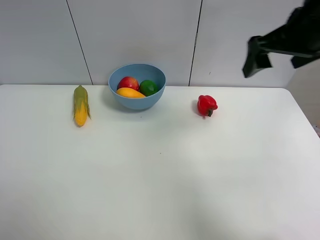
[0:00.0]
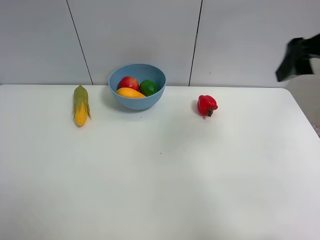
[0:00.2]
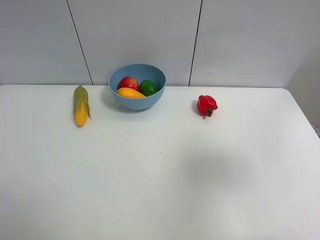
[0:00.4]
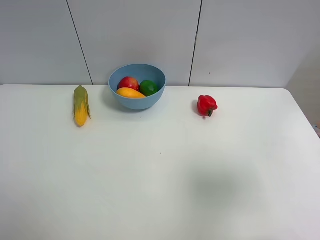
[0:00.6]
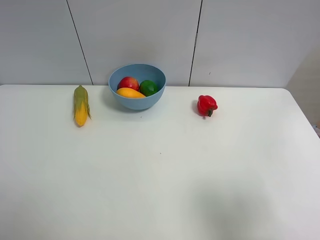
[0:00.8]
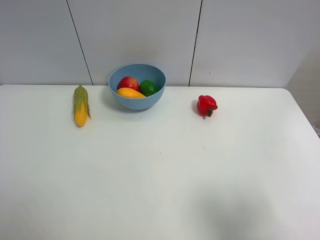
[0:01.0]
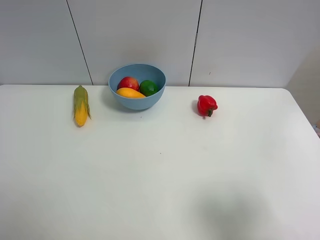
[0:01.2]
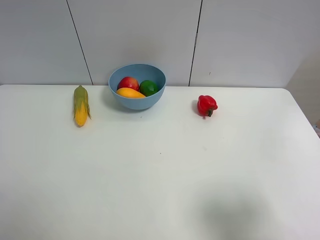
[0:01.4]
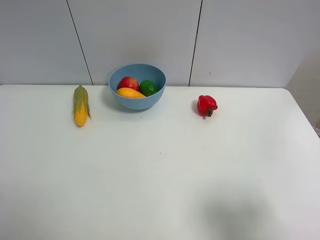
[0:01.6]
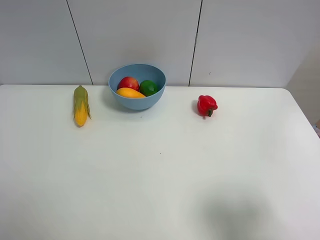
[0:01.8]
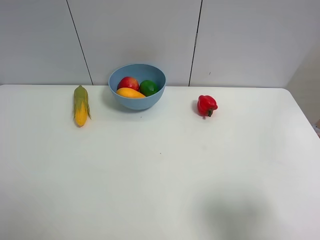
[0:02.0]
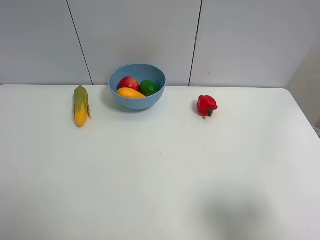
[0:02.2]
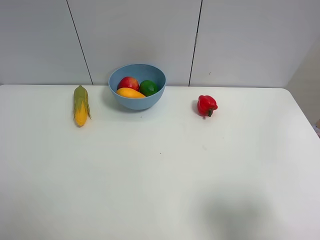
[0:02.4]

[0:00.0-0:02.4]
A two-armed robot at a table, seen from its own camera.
Task of the whole recording: Put the three fruits on the table into a bowl.
0:00.0 to 0:01.2: The right gripper shifts some 25 cm backward.

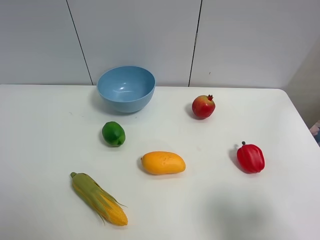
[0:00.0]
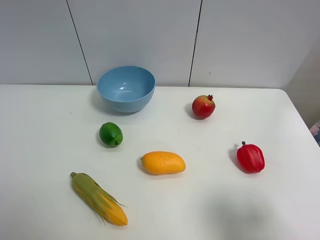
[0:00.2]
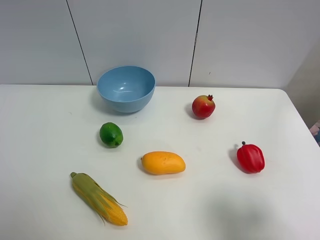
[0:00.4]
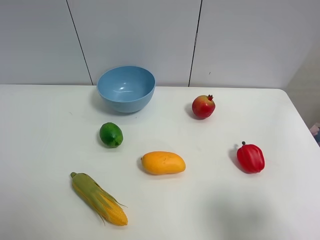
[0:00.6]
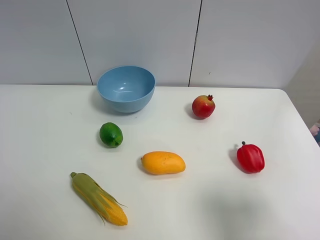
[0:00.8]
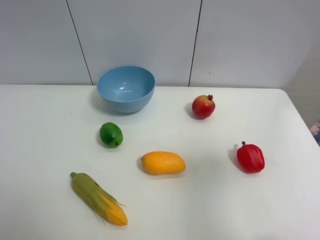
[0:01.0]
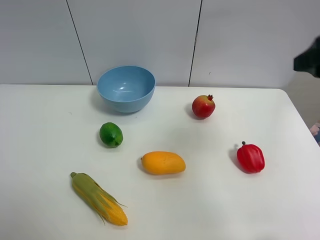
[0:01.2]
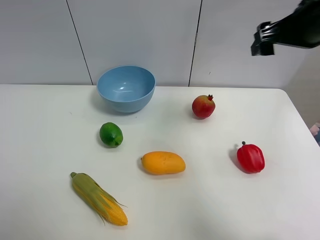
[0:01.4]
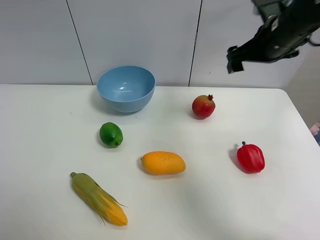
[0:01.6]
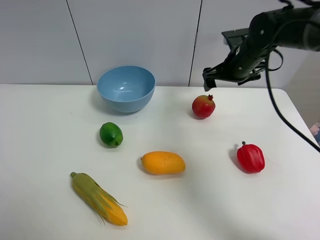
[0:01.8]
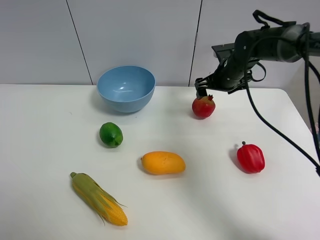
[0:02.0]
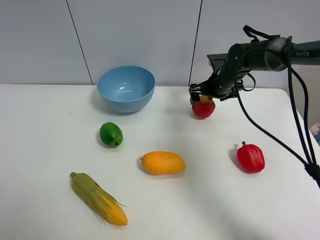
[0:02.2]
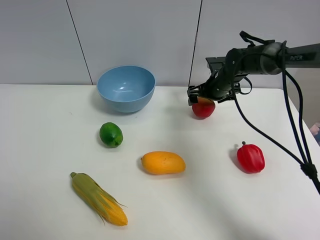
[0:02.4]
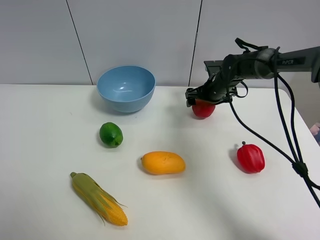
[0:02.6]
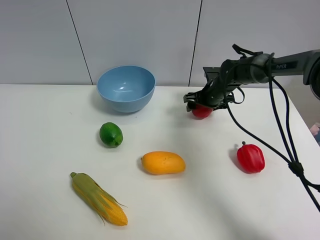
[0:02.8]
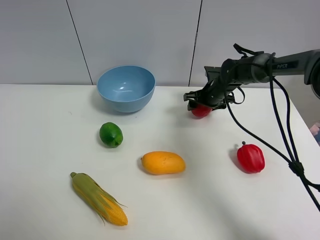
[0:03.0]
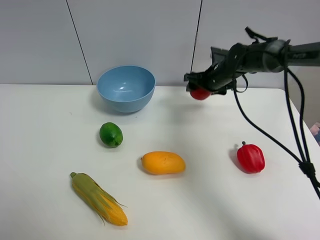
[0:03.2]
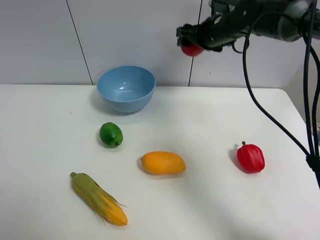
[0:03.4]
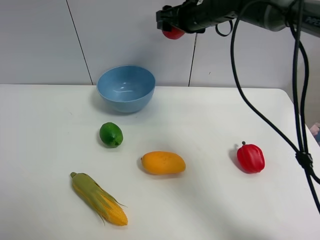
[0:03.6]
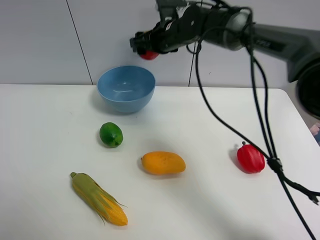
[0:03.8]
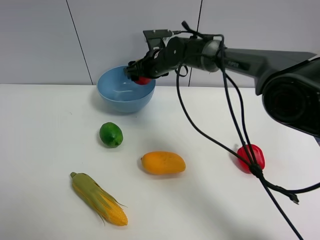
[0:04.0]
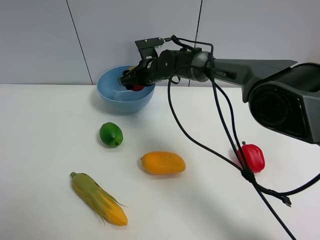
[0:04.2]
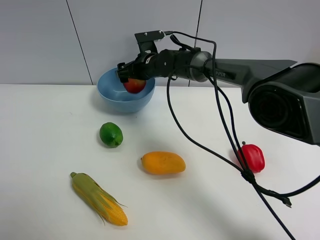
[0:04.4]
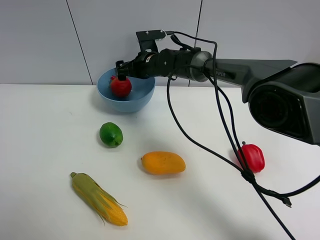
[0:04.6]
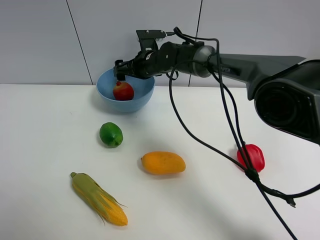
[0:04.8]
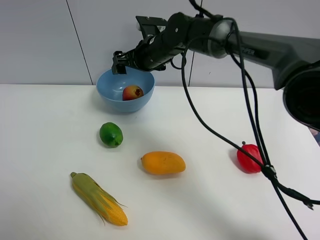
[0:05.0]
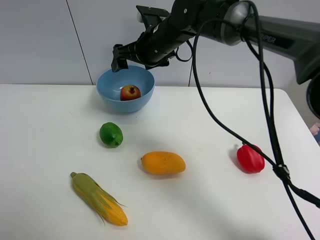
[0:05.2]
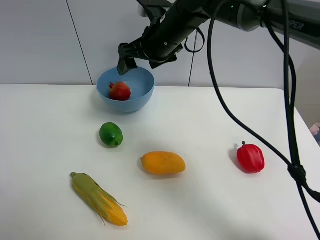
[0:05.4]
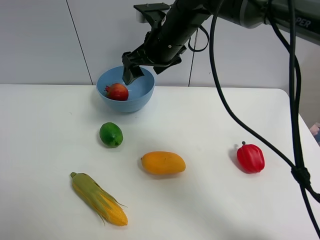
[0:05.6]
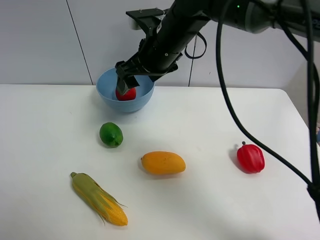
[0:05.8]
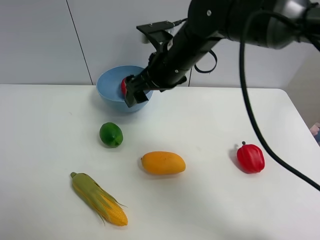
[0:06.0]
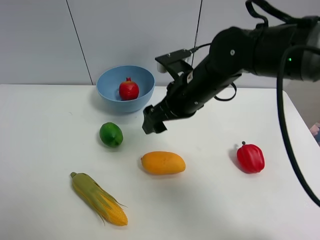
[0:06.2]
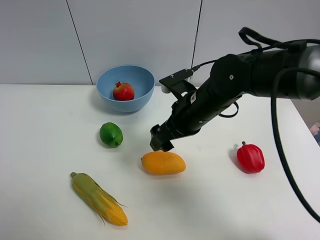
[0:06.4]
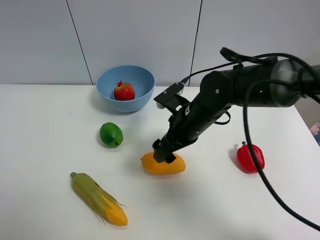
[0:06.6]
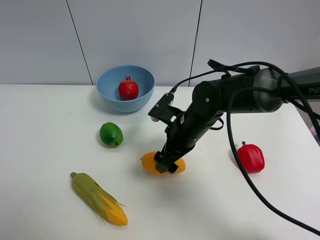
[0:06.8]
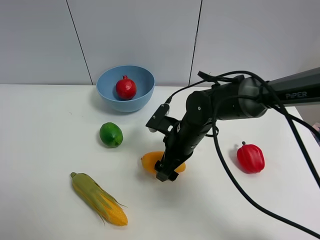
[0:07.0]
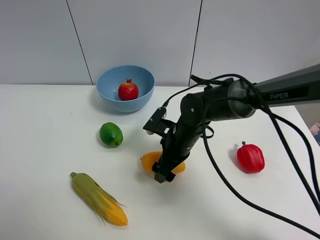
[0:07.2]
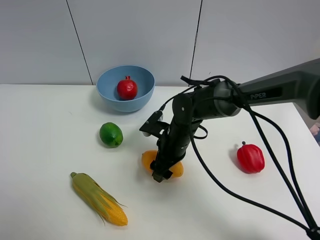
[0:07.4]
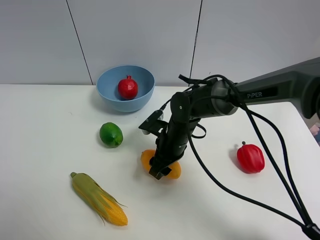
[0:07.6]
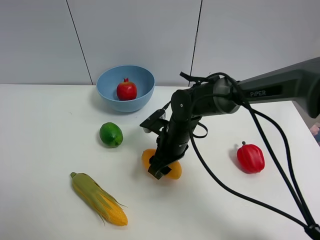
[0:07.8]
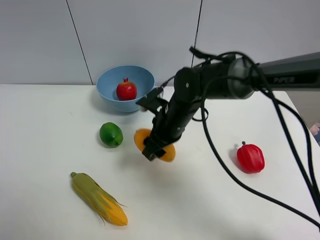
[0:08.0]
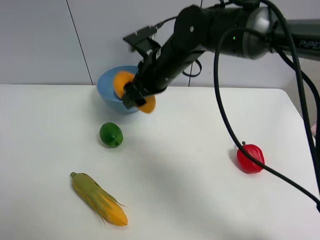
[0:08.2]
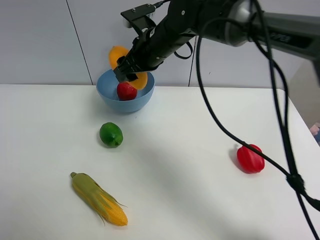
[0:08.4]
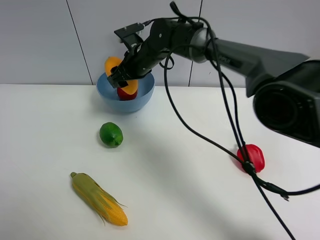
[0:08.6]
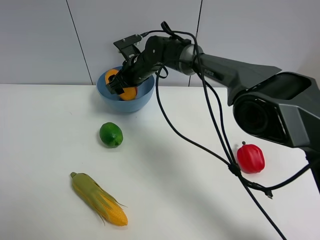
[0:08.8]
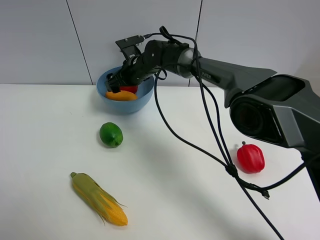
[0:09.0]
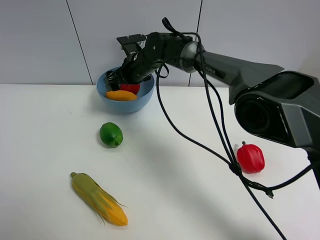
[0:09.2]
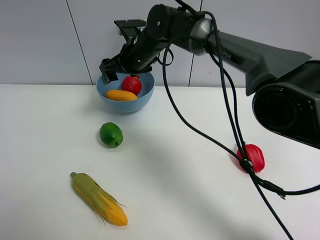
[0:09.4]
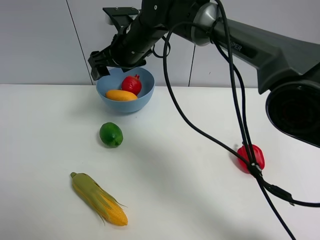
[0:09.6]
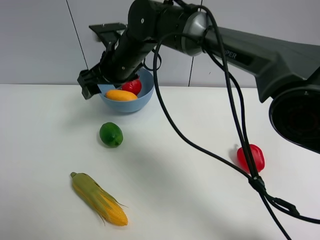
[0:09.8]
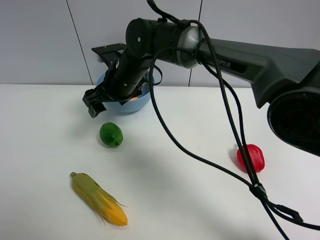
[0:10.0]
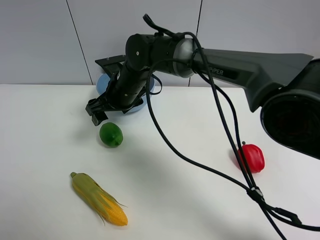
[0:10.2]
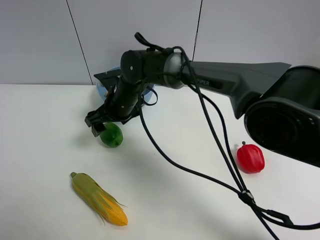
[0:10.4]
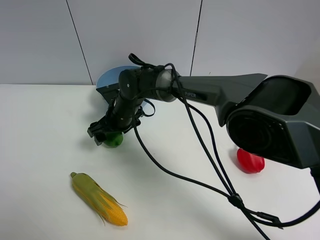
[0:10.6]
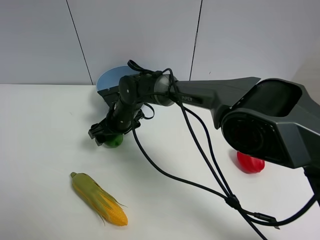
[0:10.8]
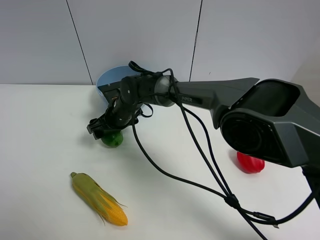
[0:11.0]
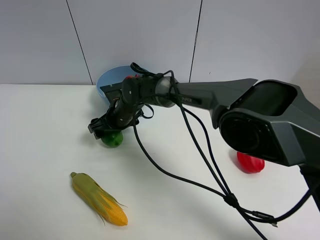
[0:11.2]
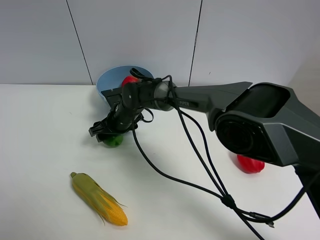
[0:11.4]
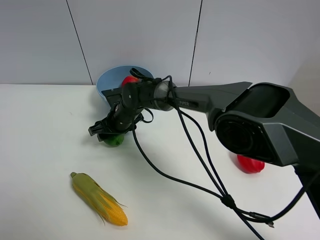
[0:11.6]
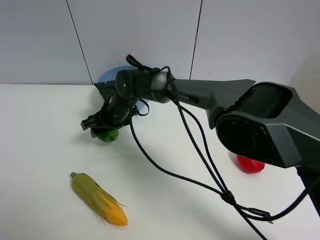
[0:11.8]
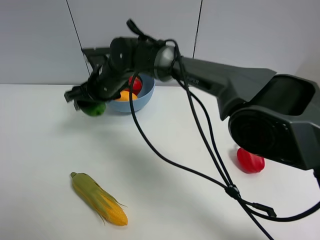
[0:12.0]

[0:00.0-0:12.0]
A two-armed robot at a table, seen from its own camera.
Task of the whole recording: Put the three fruits on the table into a bowl.
Step, 0:00.0 to 0:02.8: Grasp the pomegranate with right gripper.
Step, 0:03.0 to 0:04.4: Place the pomegranate in the blue bowl with right gripper.
Step, 0:04.6 to 0:07.6: Grasp the mango with right gripper.
Step, 0:07.8 to 0:09.0: Place the mango in the blue bowl with right gripper.
Step, 0:09.2 to 0:11.6: Grasp the green lemon with right gripper.
0:00.0 to 0:01.6: The right gripper is displaced forward by roughly 35 cm, and opens up.
0:01.6 to 0:03.0: The right gripper shifts roughly 20 cm downward and forward, and closes its fingers.
0:03.0 to 0:04.4: The right gripper shifts roughly 20 cm to the left, and opens.
0:04.4 to 0:06.0: The right gripper heads backward and upward, covering about 20 cm.
0:06.0 to 0:07.6: The right gripper is displaced downward by approximately 15 cm, and closes its fingers.
0:07.6 to 0:09.0: The right gripper is displaced forward, to the left and upward by some 20 cm, and opens.
0:09.0 to 0:10.4: The right gripper goes some 10 cm backward, and goes upward and returns, some 10 cm each way.
0:10.4 to 0:12.0: The right gripper moves upward, some 5 cm, and closes up.

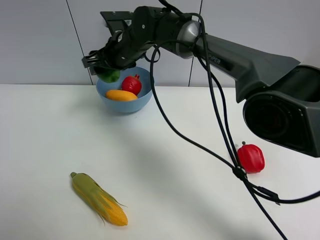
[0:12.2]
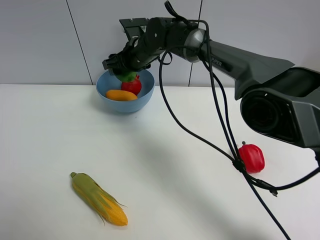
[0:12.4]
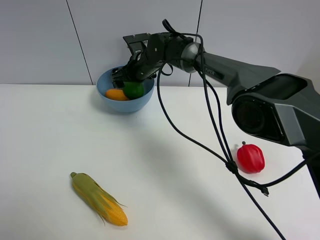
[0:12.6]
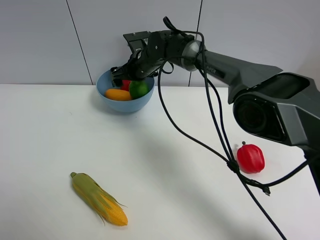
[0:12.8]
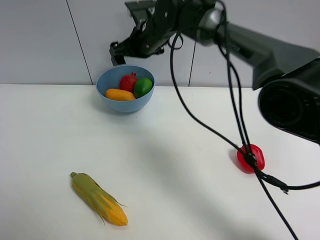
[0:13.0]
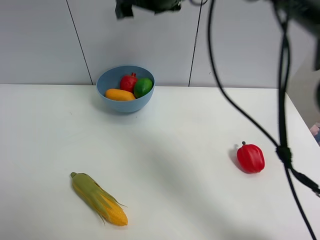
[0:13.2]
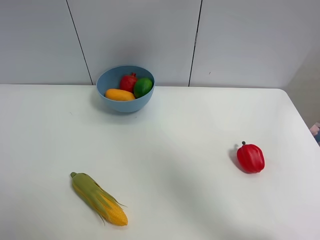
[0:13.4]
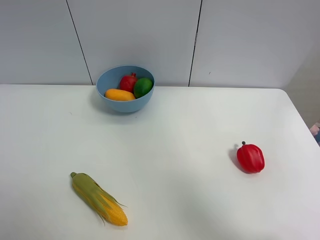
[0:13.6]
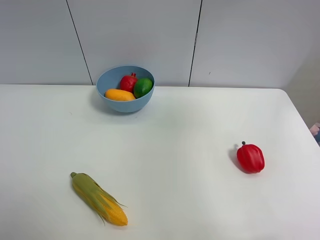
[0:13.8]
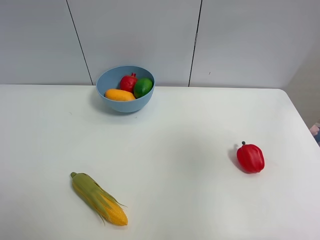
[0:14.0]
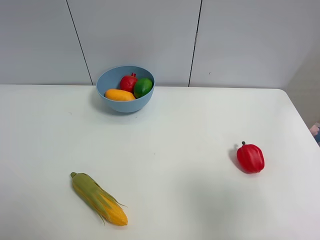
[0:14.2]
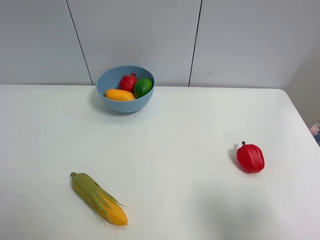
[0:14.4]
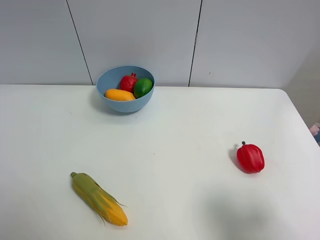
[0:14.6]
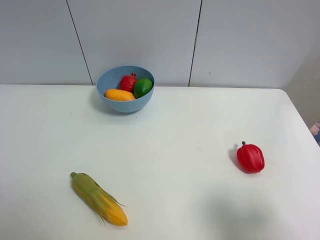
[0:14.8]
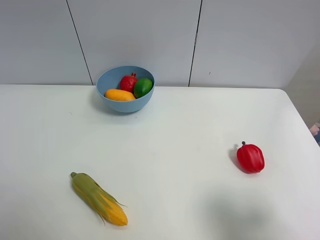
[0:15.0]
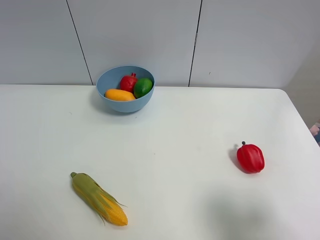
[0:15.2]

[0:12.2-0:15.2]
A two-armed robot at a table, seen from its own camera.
Task of the whole recording: Put the three fruits on the table into a bowl.
Step, 0:12.2 to 0:12.8: Place the green lemon in the blue bowl with right gripper.
0:12.2 to 0:13.8: The right gripper moves up and down over about 35 cm, changing direction 2 times, and opens its fingers.
0:13.8 to 0:15.2: The right gripper travels downward and backward by roughly 25 cm.
